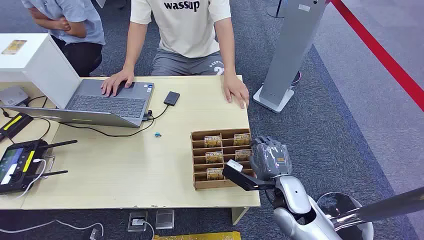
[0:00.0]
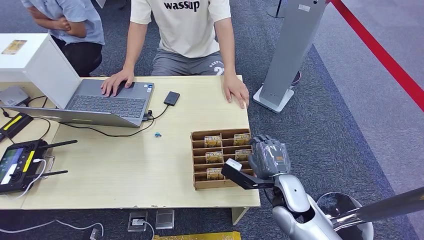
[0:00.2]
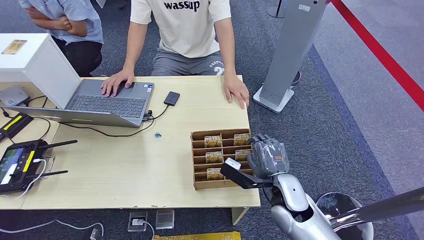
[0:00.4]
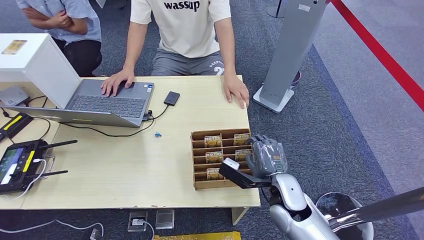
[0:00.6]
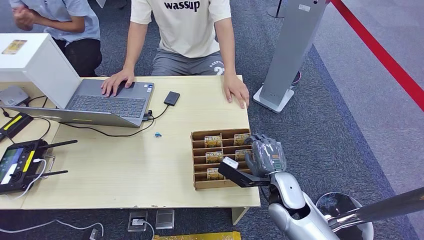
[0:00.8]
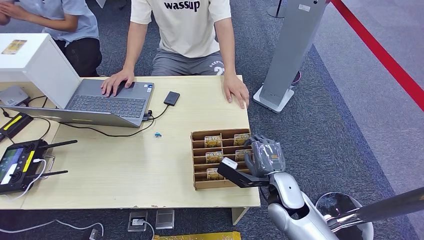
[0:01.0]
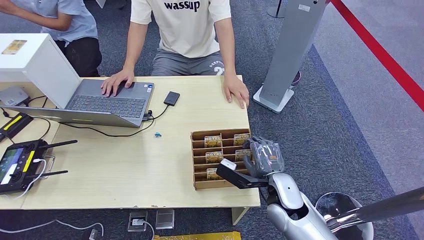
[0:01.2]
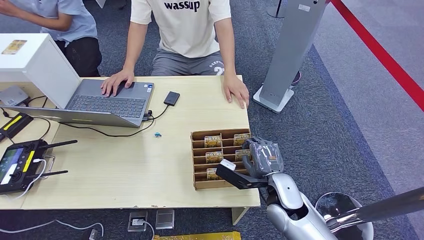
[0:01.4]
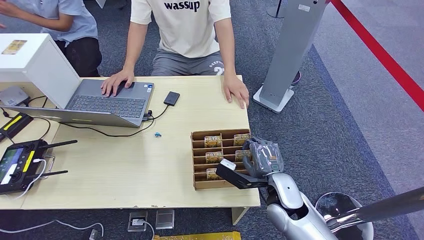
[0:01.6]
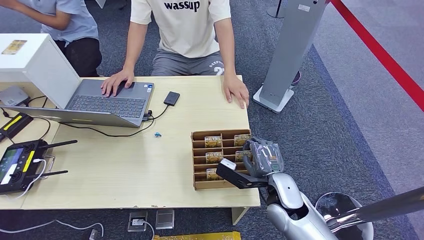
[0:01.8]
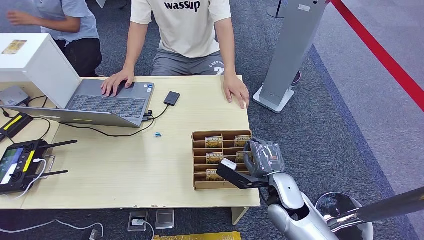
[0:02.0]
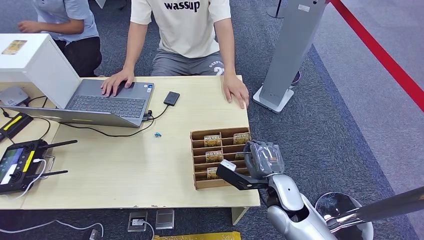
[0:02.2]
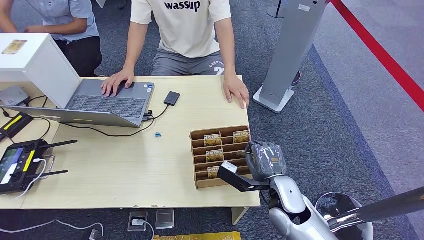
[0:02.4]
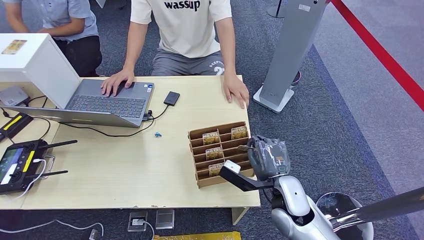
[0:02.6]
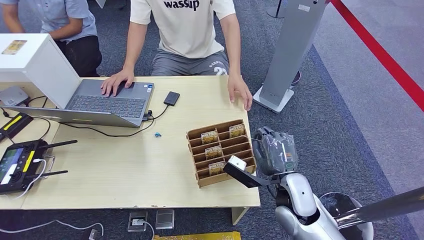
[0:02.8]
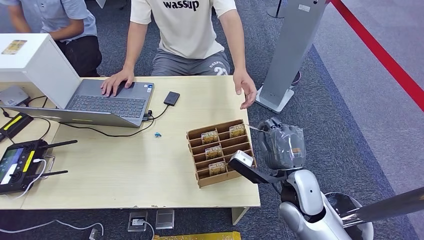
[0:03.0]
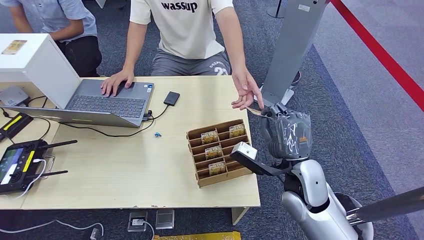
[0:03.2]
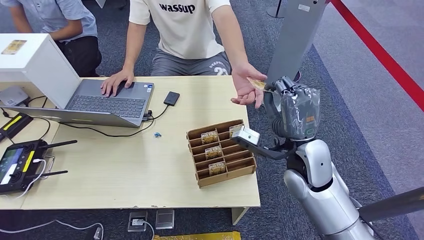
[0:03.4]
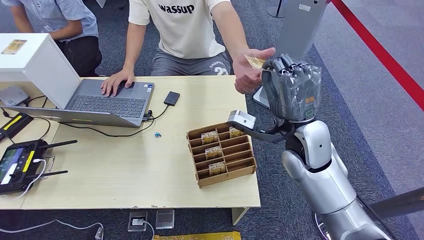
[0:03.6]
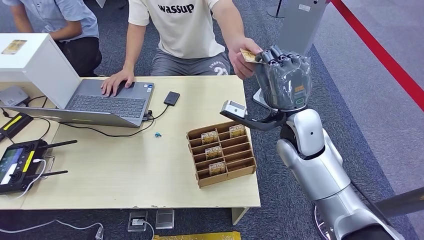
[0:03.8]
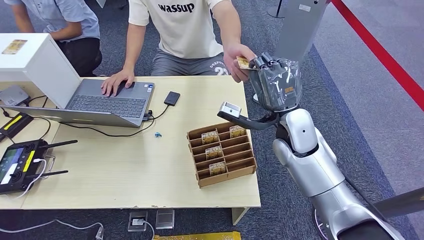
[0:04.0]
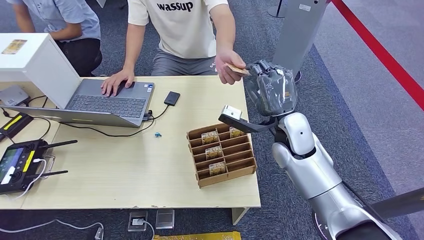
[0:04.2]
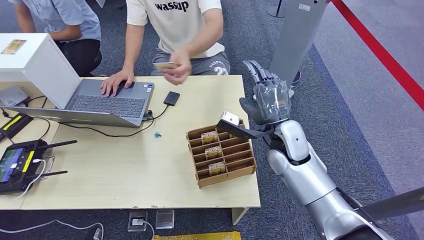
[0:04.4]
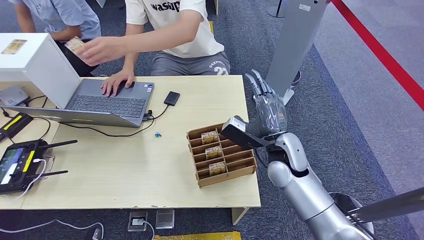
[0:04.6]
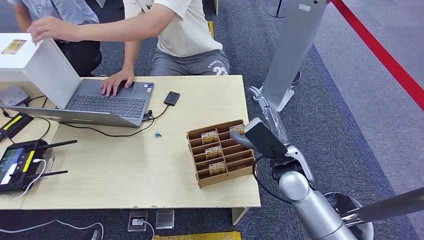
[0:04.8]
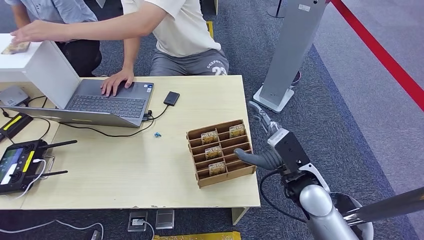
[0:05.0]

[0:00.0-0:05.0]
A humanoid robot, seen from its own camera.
Step, 0:00.0 to 0:02.8: Pick up the room card from the card holder.
Step, 0:03.0 to 0:05.0: Hand the room card to the target.
0:01.6 to 0:03.4: The right hand shifts some 10 cm upward.
0:03.4 to 0:05.0: The right hand moves downward, approximately 5 cm, and moves approximately 5 cm forward and comes back.

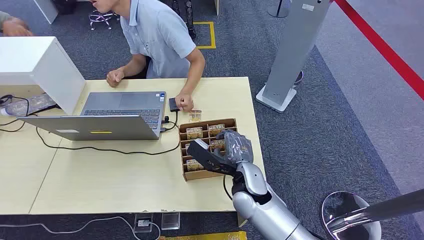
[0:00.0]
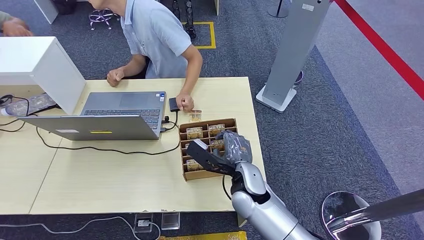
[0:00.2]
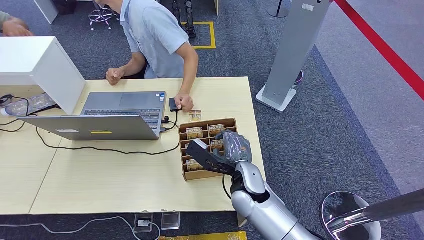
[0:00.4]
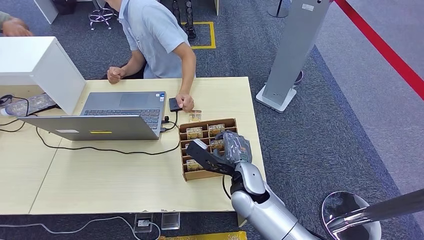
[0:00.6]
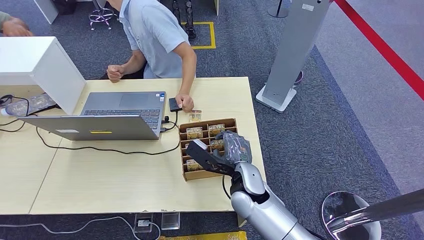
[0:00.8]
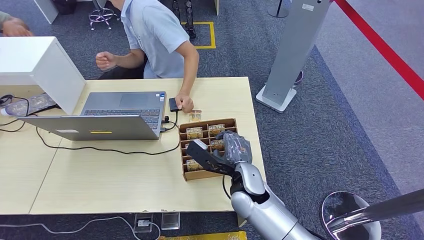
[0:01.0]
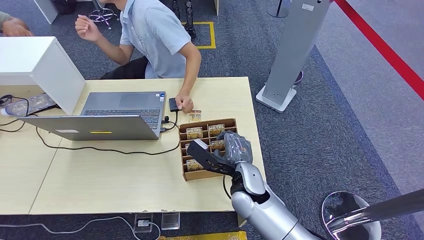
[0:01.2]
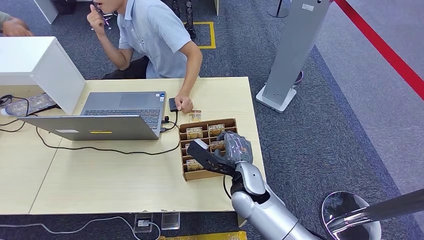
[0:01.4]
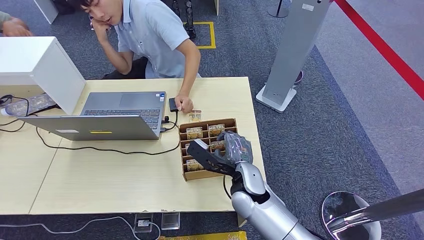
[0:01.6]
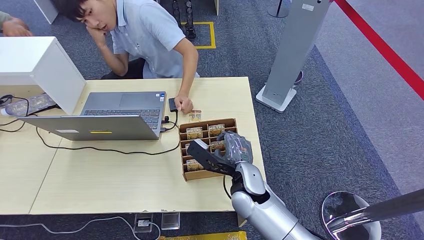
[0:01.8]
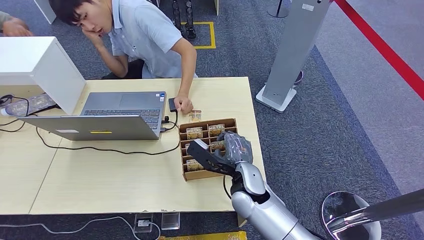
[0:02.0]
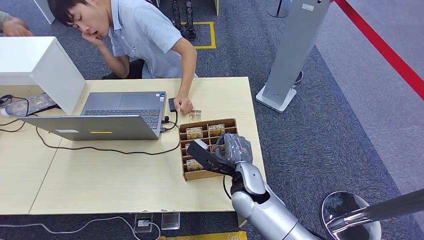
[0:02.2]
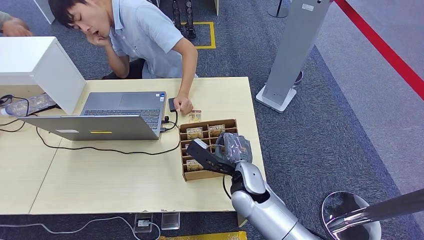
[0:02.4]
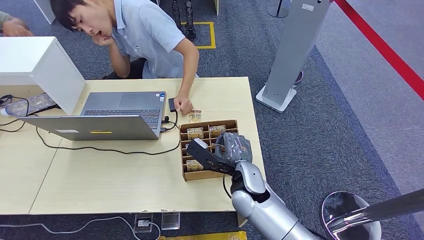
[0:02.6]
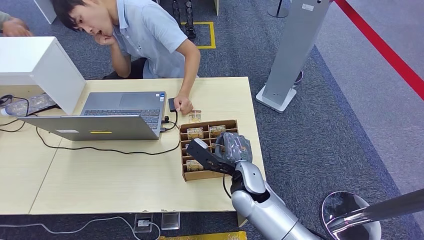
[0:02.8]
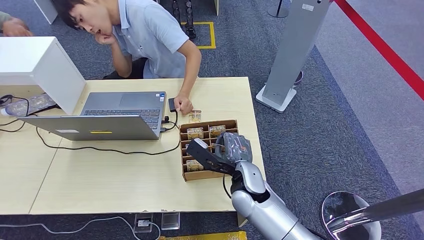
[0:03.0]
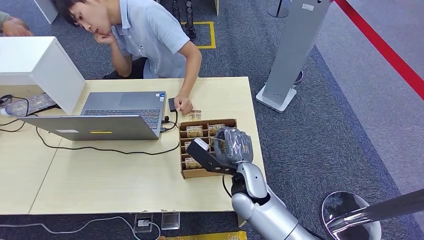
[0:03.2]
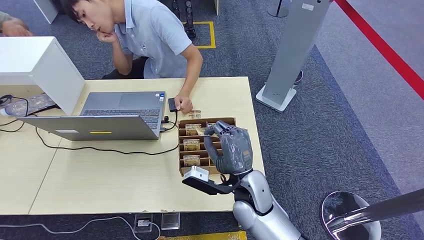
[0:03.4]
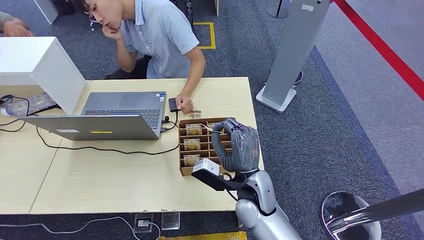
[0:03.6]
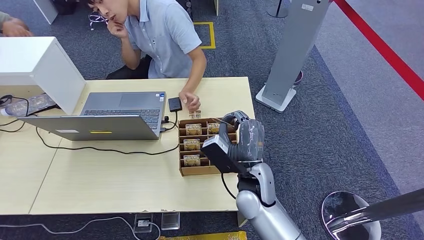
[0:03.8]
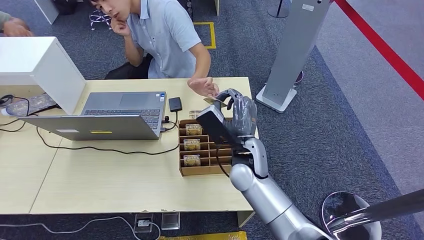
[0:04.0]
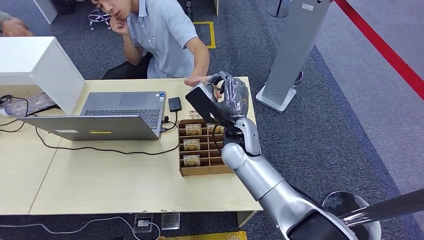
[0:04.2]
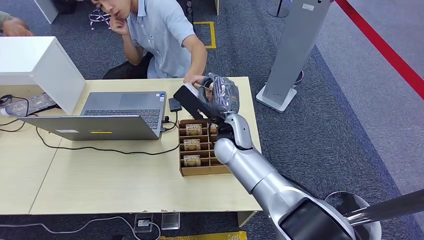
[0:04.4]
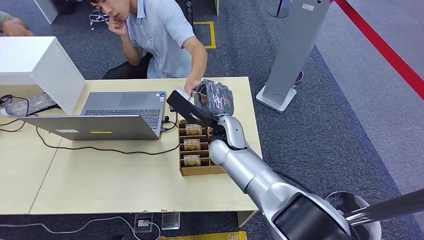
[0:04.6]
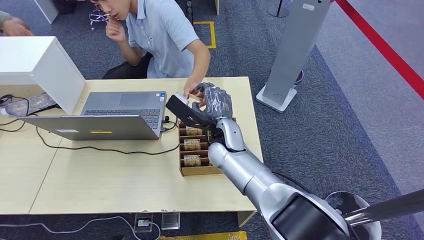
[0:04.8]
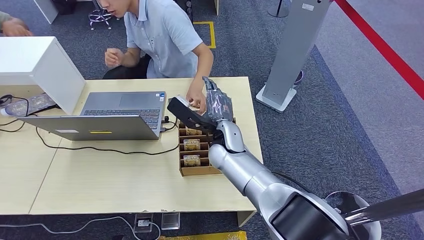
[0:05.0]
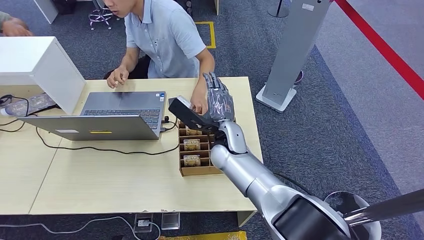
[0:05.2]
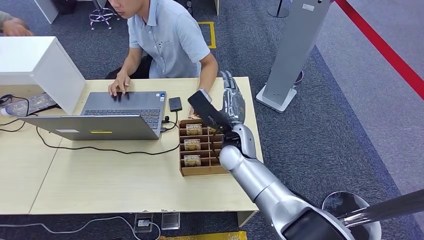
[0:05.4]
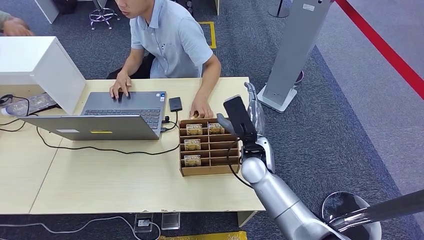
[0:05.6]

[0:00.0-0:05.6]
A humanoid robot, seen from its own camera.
Step, 0:00.0 to 0:03.4: Pick up the room card from the card holder.
Step, 0:04.2 to 0:05.6: Hand the room card to the target.
0:01.4 to 0:02.8: The two hands keep their place.
0:02.8 to 0:04.2: The right hand travels upward and forward by about 10 cm.
0:04.2 to 0:05.6: The right hand moves roughly 5 cm.

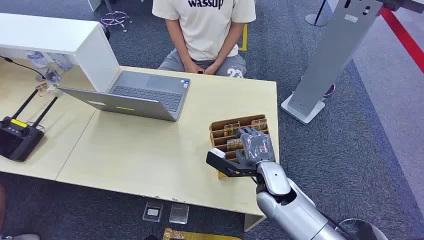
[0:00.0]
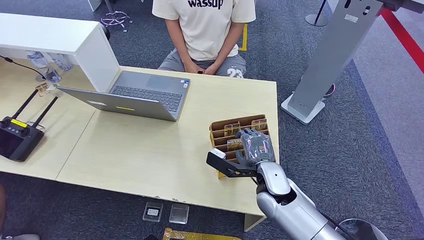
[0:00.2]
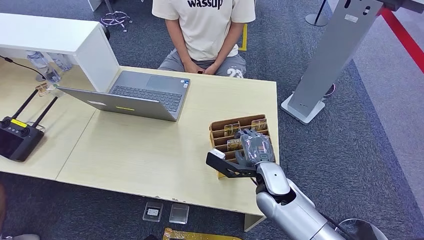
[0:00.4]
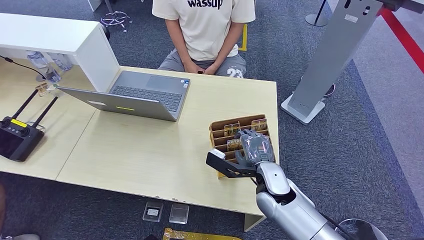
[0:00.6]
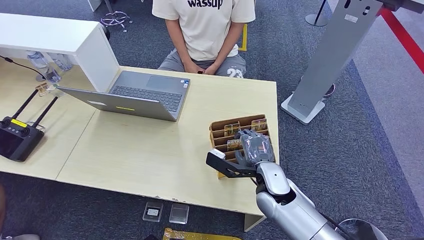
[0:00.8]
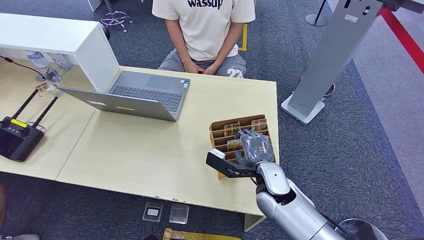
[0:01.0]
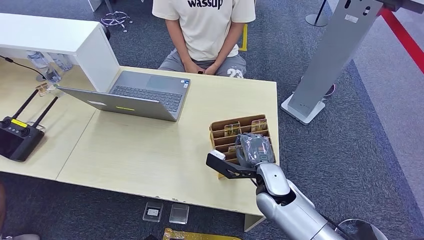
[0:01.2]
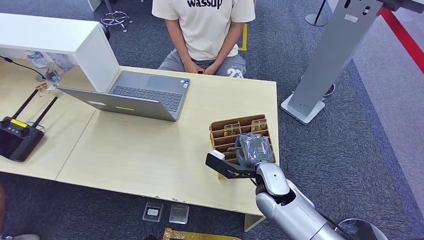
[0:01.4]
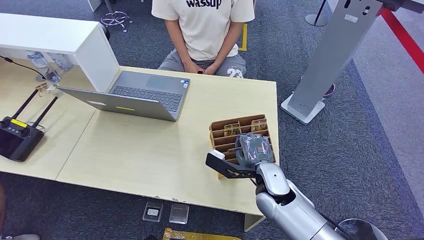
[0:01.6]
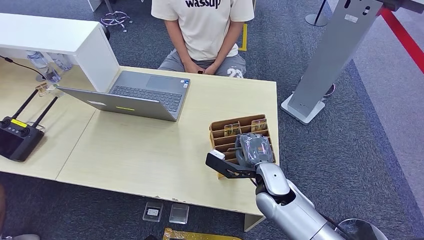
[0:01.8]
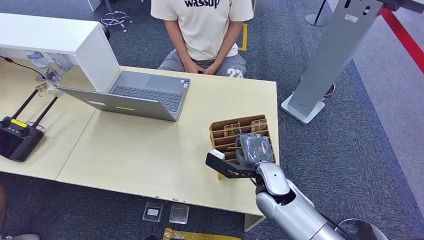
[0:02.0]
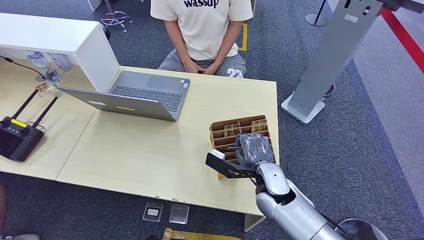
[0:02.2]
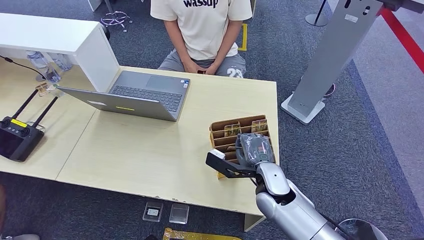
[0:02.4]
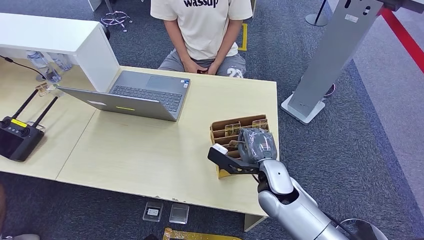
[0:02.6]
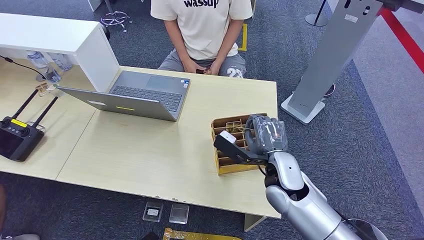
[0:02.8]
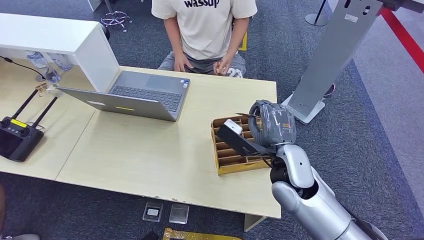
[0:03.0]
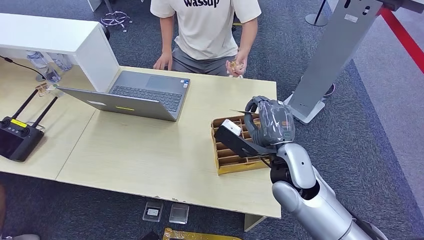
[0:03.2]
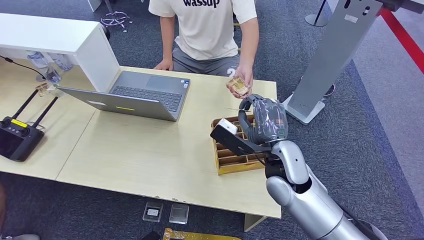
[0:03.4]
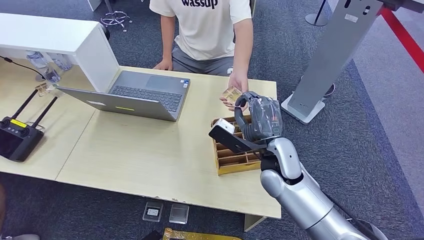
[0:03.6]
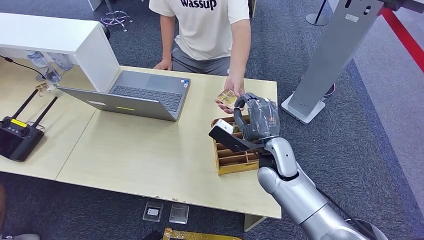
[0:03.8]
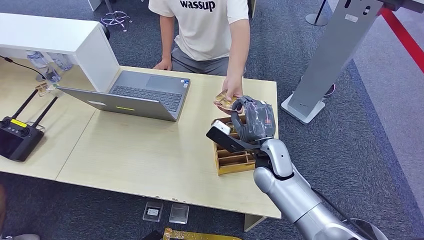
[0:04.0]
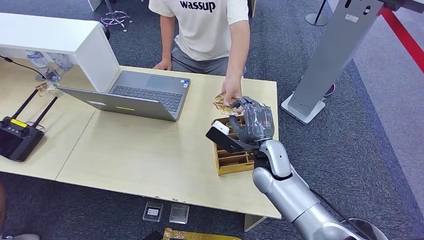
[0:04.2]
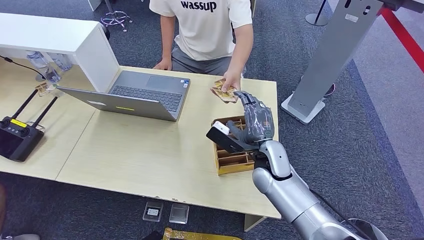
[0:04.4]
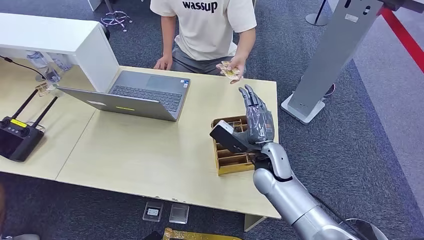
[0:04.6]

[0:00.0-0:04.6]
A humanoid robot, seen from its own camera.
Step, 0:00.0 to 0:02.6: Pick up the room card from the card holder.
Step, 0:03.2 to 0:04.4: Hand the room card to the target.
0:01.6 to 0:03.0: The right hand goes about 10 cm upward.
0:03.0 to 0:04.6: The right hand moves downward, about 5 cm.
